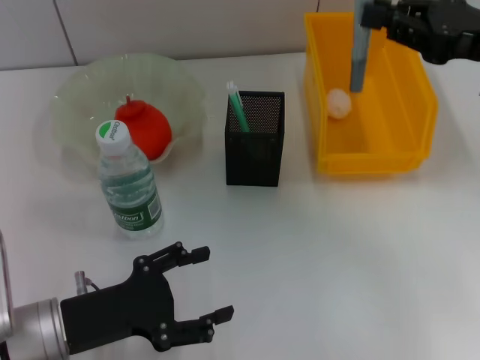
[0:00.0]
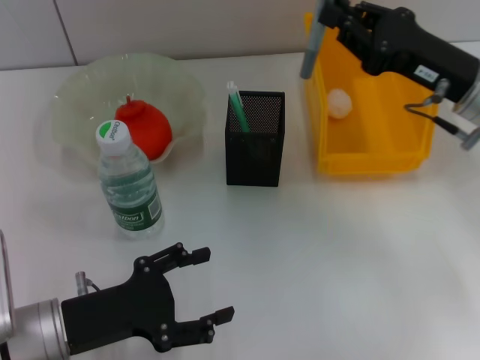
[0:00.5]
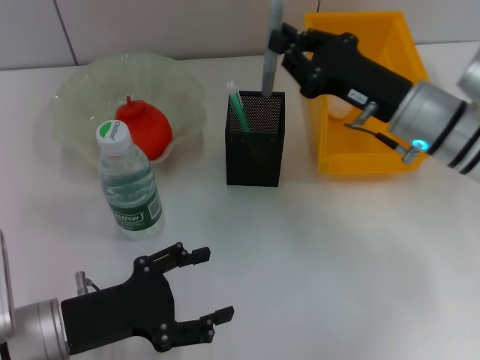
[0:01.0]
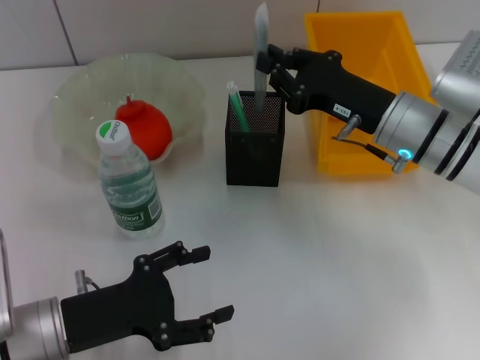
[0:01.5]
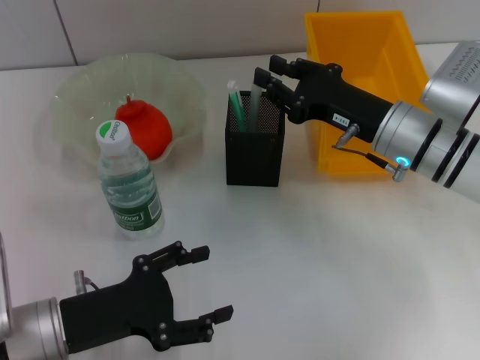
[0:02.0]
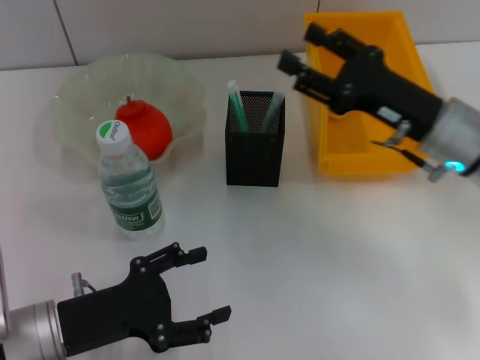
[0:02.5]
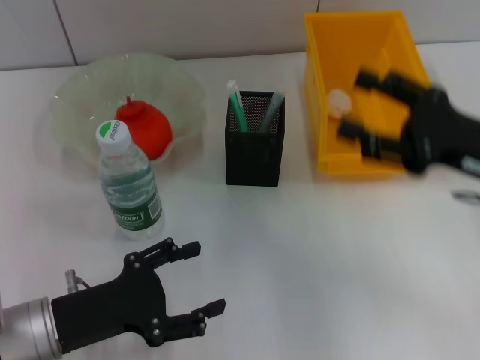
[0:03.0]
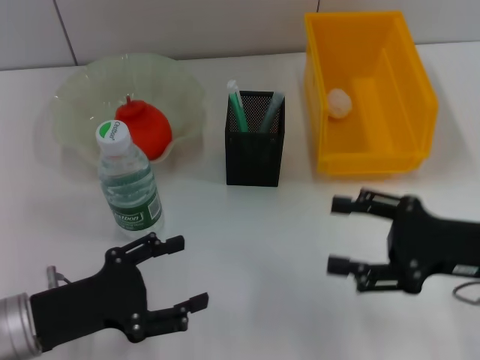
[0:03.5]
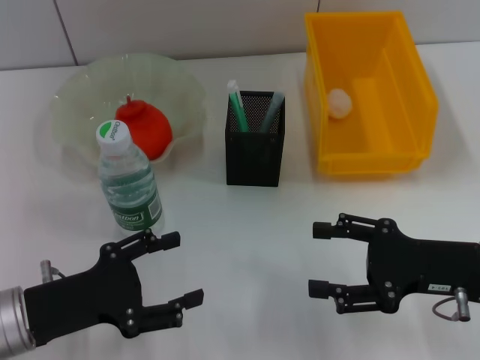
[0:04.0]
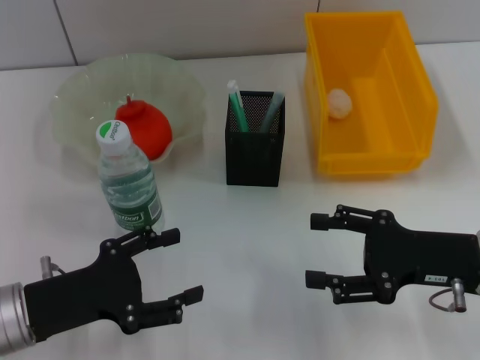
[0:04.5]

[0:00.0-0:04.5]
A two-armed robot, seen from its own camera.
Step, 0:00.0 to 0:02.0: Place the gray glue into the pen holder with the right hand.
0:00.0 to 0:02.0: The right gripper shifts about 15 cm downward and to the left.
0:02.0 to 0:04.5: The right gripper moves backward and to the right, approximately 15 cm, and opens its fingers.
